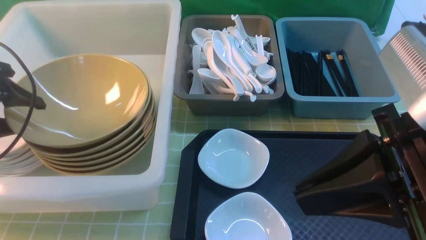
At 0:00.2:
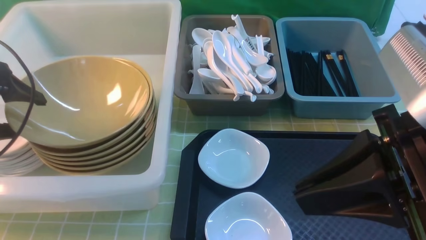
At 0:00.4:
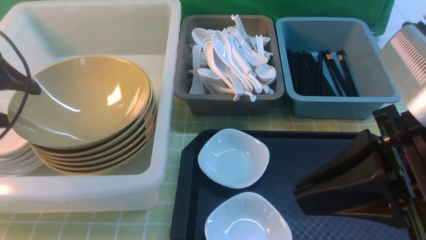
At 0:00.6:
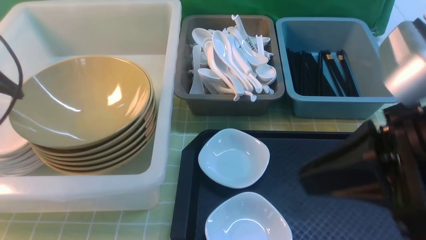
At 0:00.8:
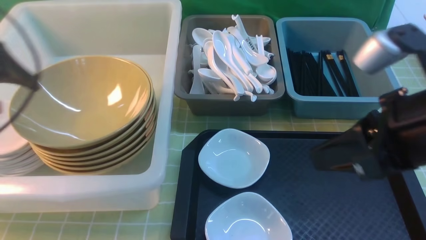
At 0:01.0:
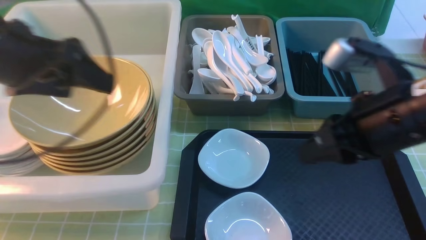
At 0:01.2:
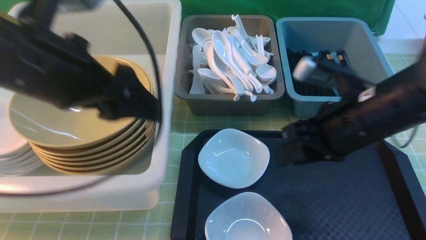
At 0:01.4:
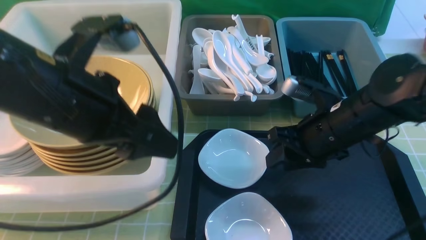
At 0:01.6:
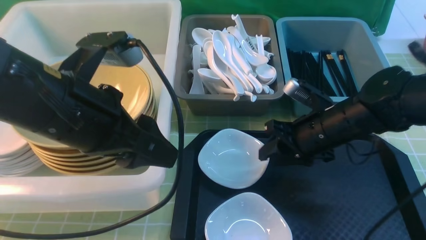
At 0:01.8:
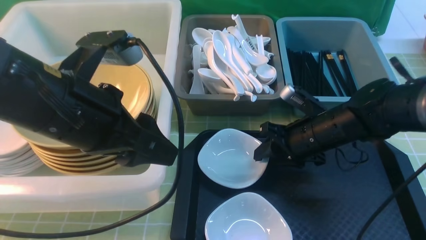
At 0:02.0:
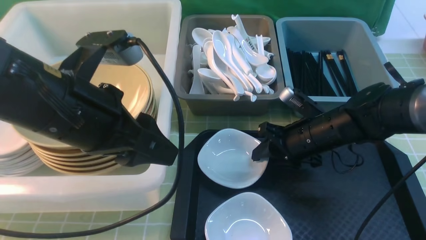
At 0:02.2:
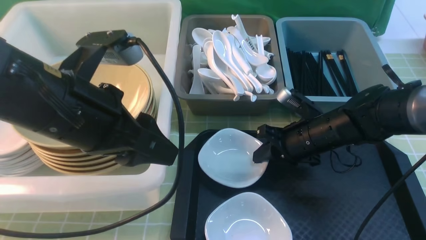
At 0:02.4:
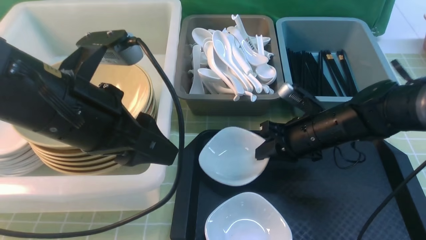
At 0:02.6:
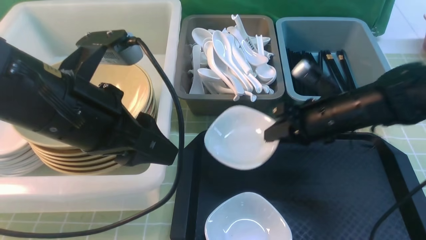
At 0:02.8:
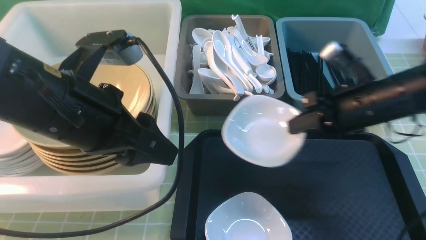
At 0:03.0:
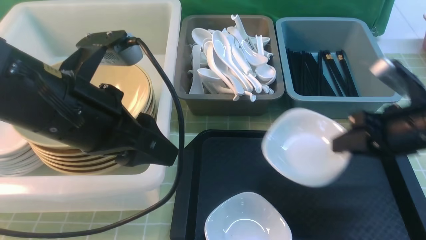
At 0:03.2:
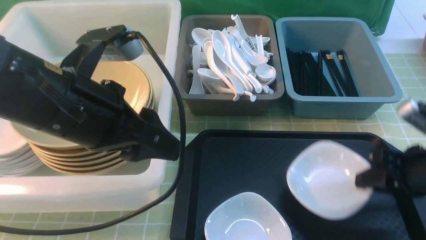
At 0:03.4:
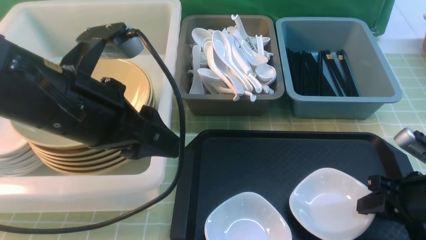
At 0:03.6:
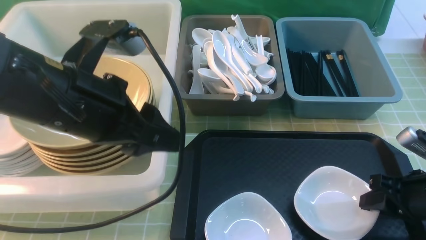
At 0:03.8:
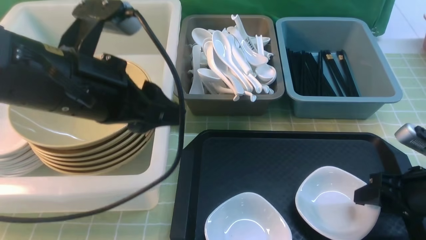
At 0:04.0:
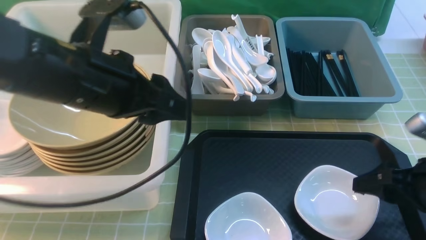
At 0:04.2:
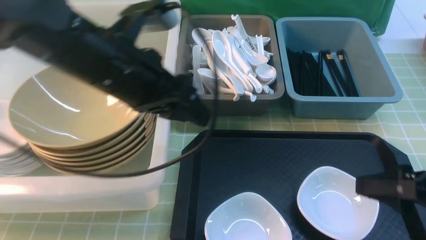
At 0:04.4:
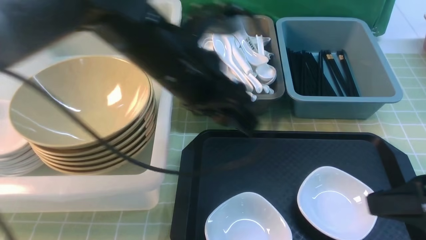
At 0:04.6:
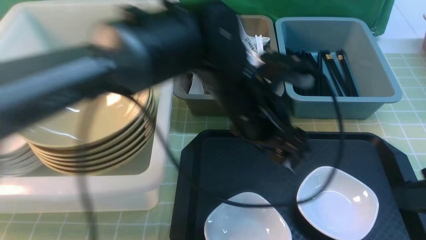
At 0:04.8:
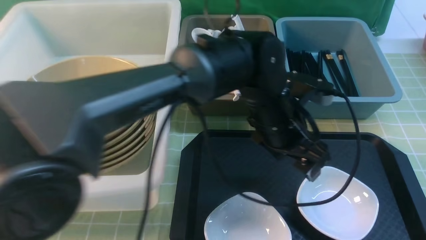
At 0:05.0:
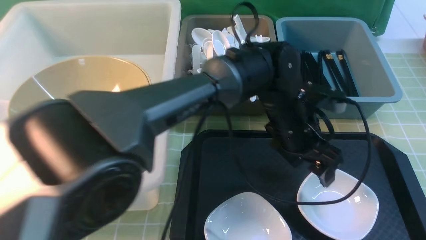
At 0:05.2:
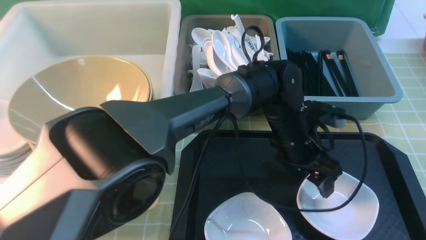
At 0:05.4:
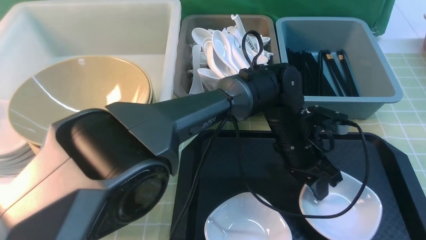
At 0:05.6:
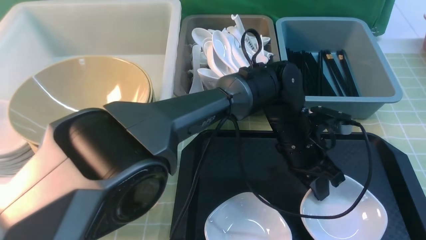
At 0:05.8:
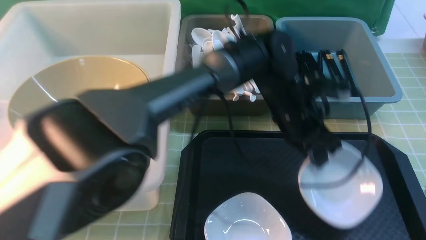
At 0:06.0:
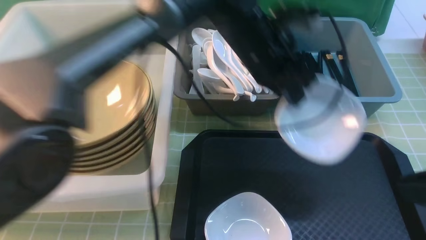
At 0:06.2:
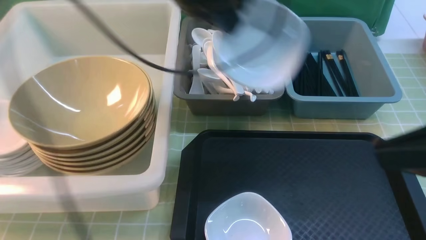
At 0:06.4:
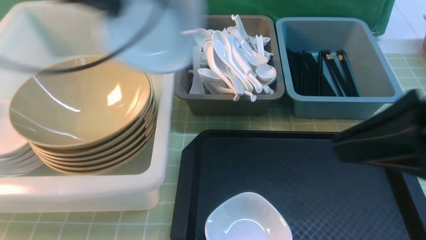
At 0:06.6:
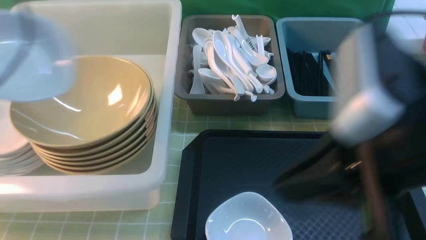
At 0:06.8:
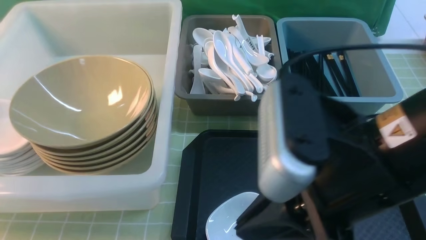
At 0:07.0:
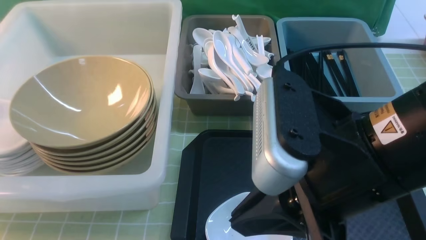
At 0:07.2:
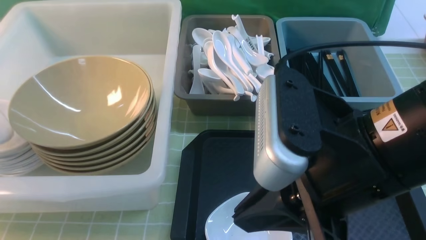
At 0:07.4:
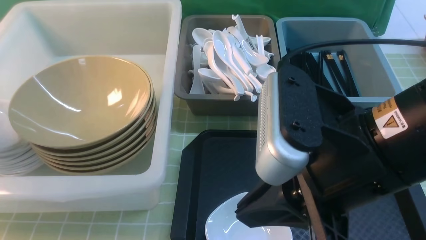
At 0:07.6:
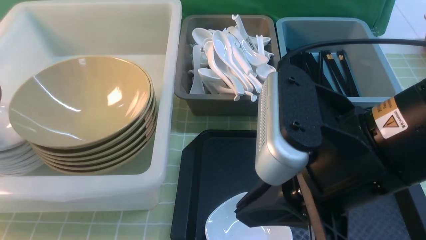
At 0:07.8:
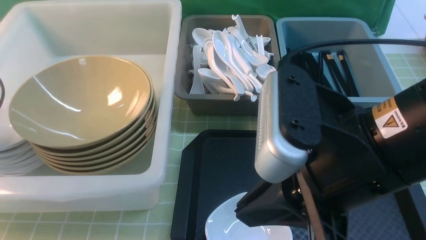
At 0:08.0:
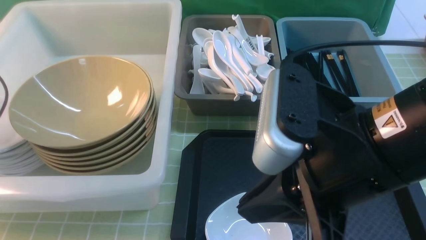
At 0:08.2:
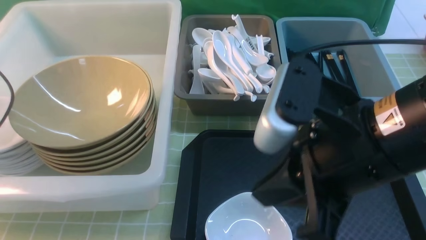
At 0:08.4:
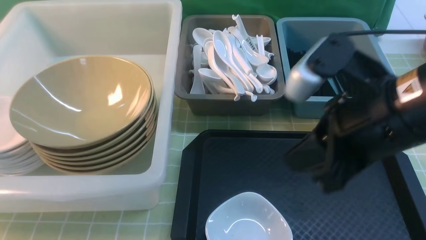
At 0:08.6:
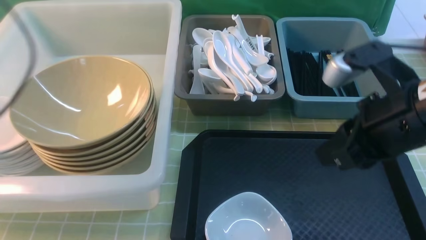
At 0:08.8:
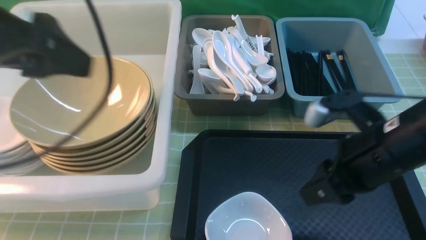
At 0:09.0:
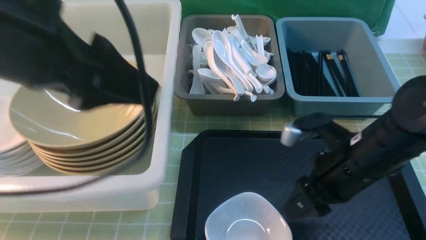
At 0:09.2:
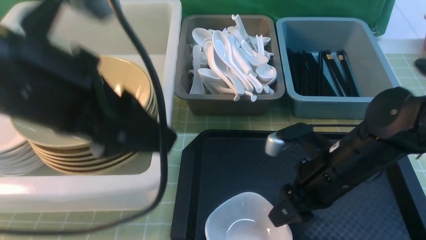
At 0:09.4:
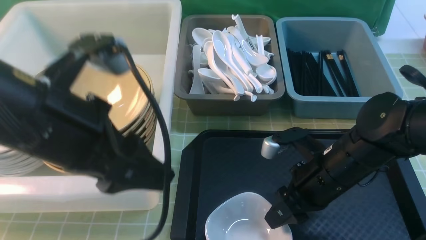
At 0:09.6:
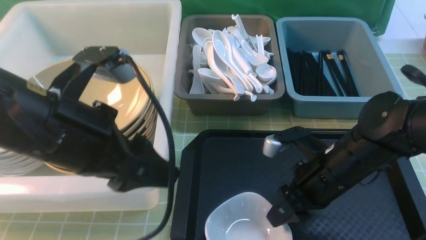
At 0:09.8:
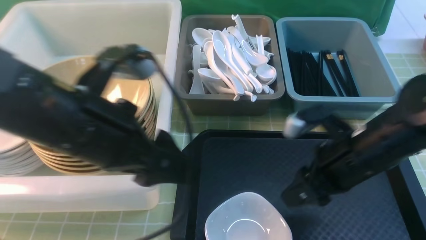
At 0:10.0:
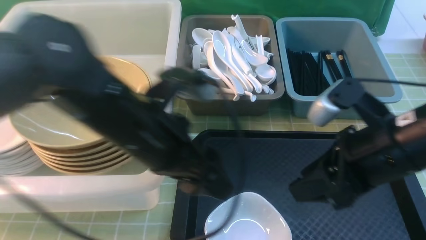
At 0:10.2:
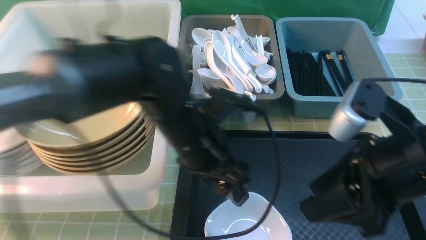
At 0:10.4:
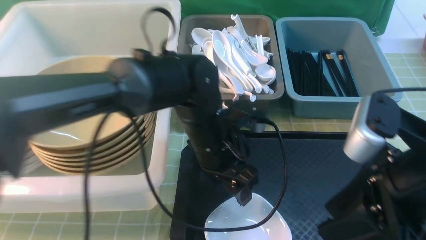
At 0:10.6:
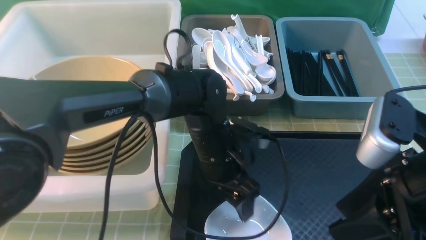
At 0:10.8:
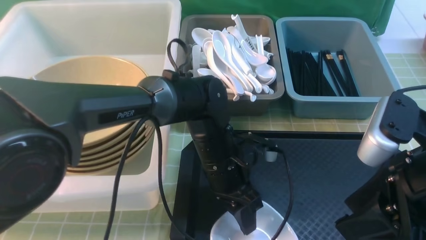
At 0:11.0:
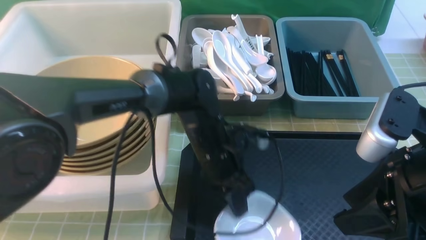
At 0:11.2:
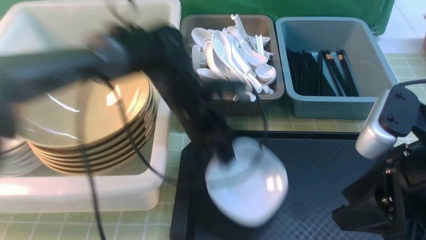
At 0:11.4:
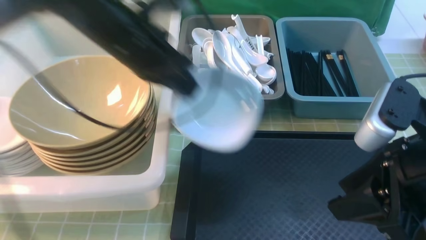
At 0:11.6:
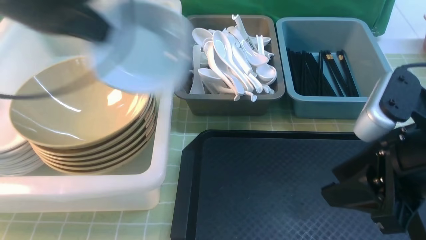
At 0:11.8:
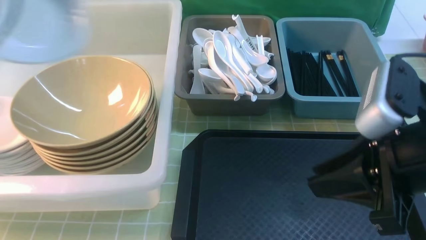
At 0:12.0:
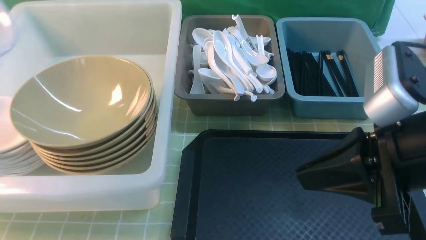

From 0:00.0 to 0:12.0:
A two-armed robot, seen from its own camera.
Task of the whole recording: on green table put chopsticks spoon bowls plates into blue grey white boxes.
Step, from 0:01.0 to 0:02.6: use the right arm to grab the plate.
Step, from 0:02.8 to 0:04.2: use the right arm to put the plate on the tray.
Step, from 0:04.4 to 0:05.8: use the left arm to grab the plate.
Step, from 0:06.2 to 0:07.8: use the left arm to put the plate into the large storage box on the left.
Step, from 0:08.2 to 0:11.2: use the left arm to grab the plate.
From 0:00.0 to 0:01.6: The left gripper goes some 20 cm to the right. The right gripper shifts approximately 25 cm downward and forward, and opens up.
From 0:01.6 to 0:03.0: The right gripper goes roughly 10 cm to the right and backward, and closes its fingers.
From 0:03.0 to 0:04.4: The left gripper is displaced to the right and forward by about 15 cm. The right gripper is displaced backward and upward by roughly 15 cm, and opens.
From 0:04.4 to 0:06.0: The left gripper goes about 10 cm forward, moves some 15 cm downward and comes back, and closes up. The right gripper travels upward by roughly 5 cm, and closes its fingers.
From 0:06.0 to 0:07.6: The right gripper travels to the left by about 15 cm; the left gripper moves to the left, some 40 cm.
From 0:07.6 to 0:09.0: The right gripper moves downward, forward and to the right, roughly 20 cm, and opens. Meanwhile the left gripper travels to the right, upward and backward by roughly 30 cm, and opens its fingers.
From 0:09.0 to 0:10.4: The left gripper heads downward, to the right and forward, covering roughly 30 cm. The right gripper goes roughly 15 cm upward and backward.
From 0:10.4 to 0:12.0: The right gripper closes its fingers, while the left gripper goes some 40 cm to the left and upward, and closes its fingers.

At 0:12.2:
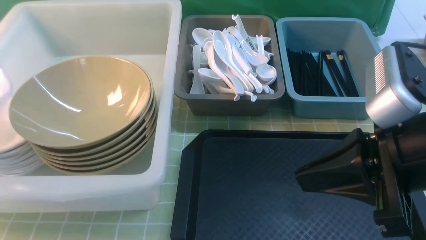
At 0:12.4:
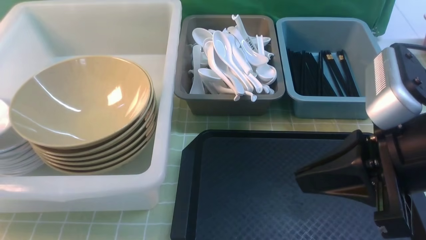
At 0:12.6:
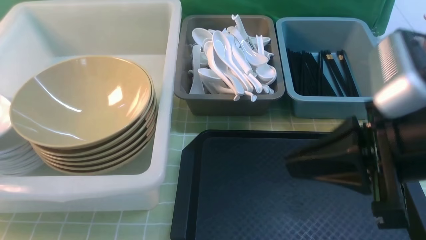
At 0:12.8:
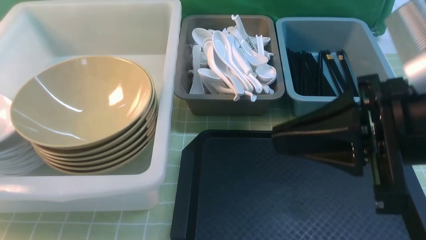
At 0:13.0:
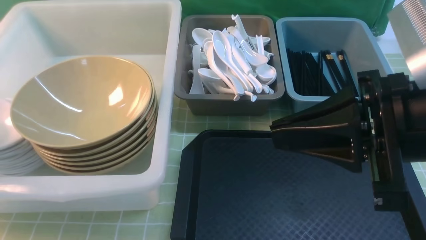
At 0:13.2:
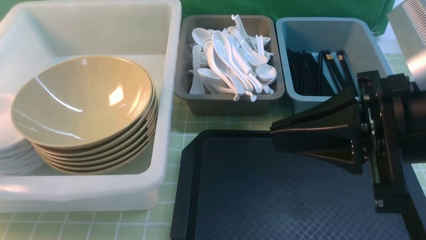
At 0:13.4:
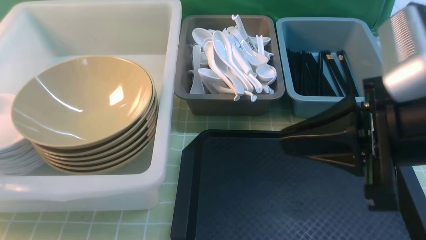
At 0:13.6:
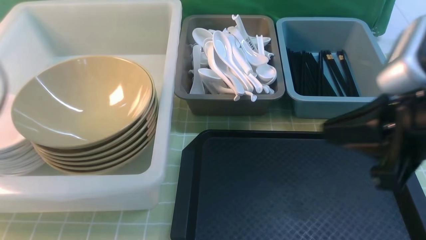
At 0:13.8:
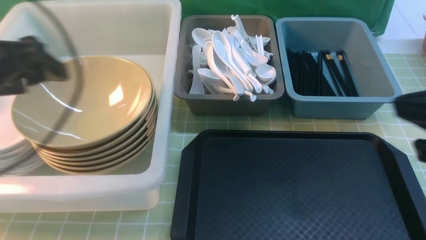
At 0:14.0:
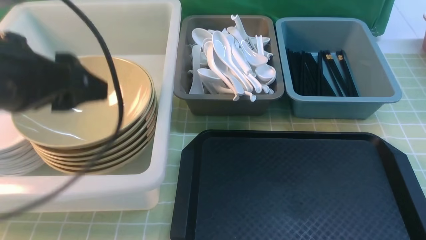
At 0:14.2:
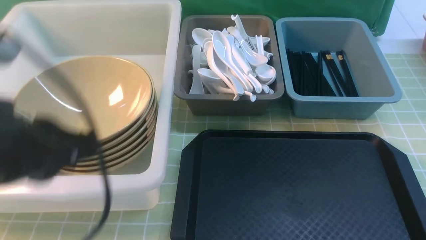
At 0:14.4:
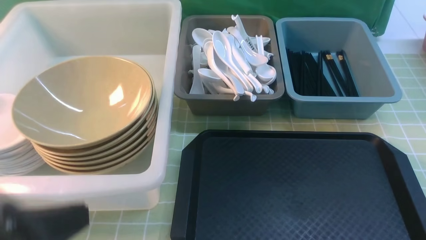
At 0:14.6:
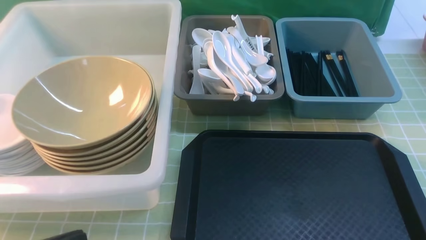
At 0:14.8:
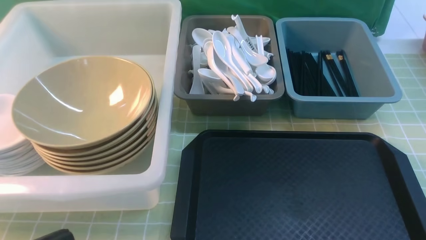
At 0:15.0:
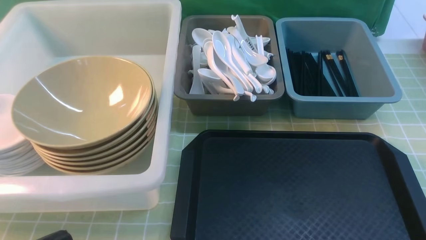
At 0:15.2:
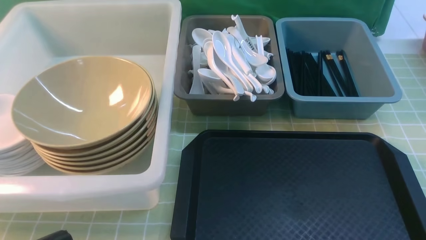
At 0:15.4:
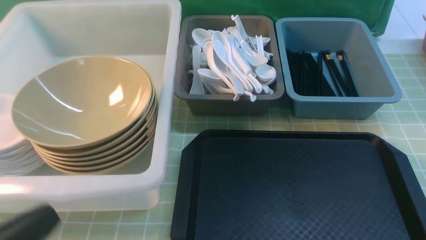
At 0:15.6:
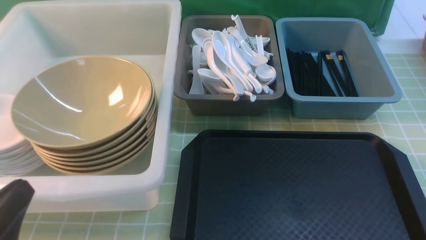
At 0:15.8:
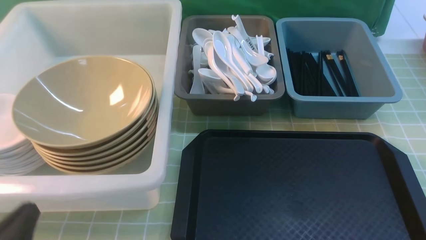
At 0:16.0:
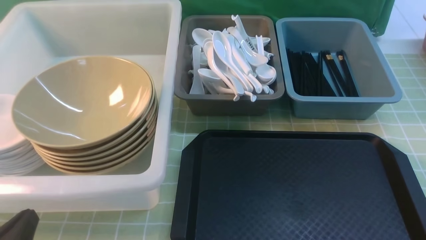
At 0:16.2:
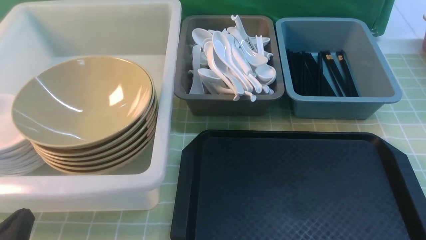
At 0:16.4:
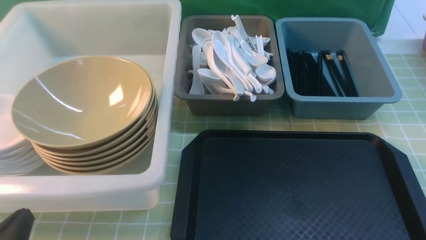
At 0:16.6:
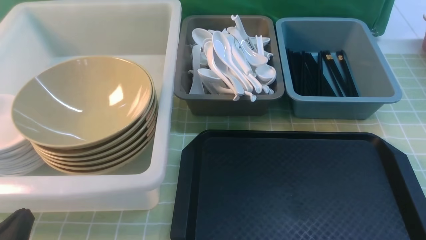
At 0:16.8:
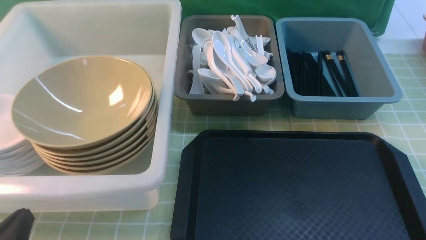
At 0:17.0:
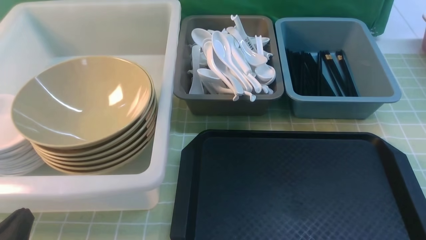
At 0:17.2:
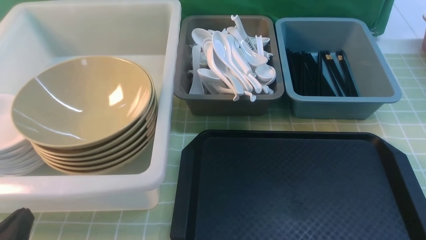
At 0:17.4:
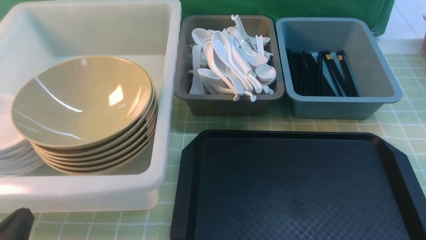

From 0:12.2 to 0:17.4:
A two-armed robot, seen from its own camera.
Task of the whole recording: on green table put chopsticks spoon bowls plates into blue grey white boxes.
Step, from 0:12.2 to 0:13.8: use the left arm to put the plate into the large storage box on the left.
From 0:12.2 to 0:14.0: The right gripper goes about 10 cm to the right and backward, while the left gripper heads to the right, covering some 20 cm, and opens up.
From 0:14.0 to 0:15.6: The left gripper shifts some 20 cm downward and backward, and closes.
From 0:15.6 to 0:17.4: The left gripper heads downward, covering some 5 cm.
